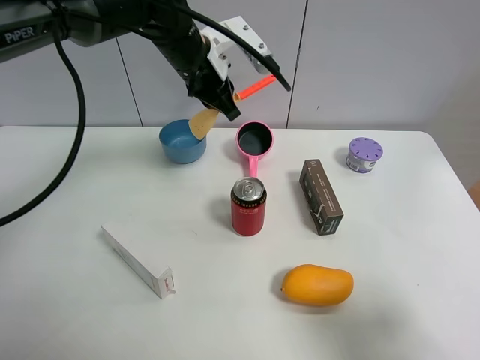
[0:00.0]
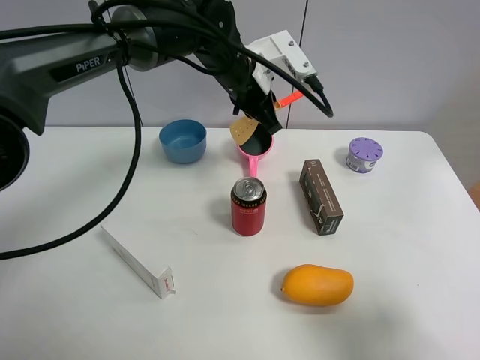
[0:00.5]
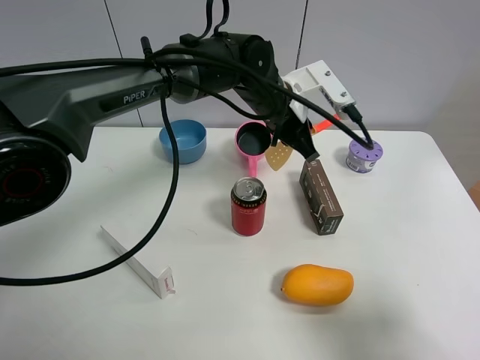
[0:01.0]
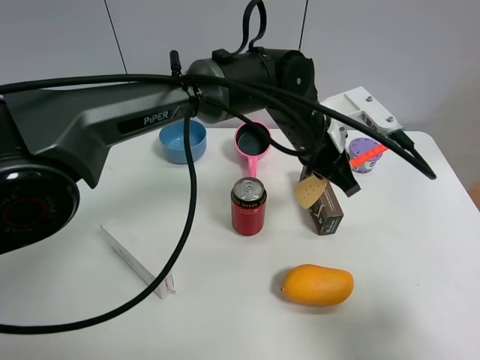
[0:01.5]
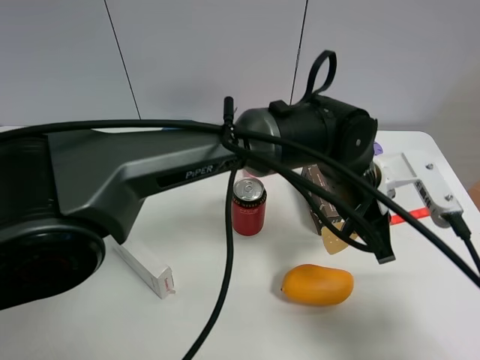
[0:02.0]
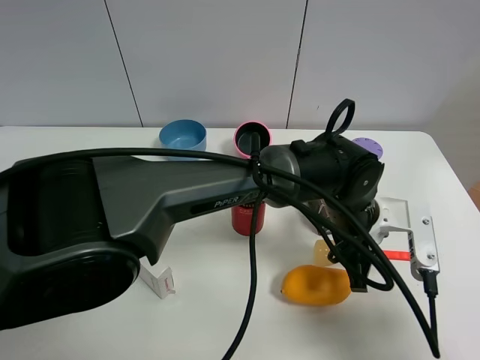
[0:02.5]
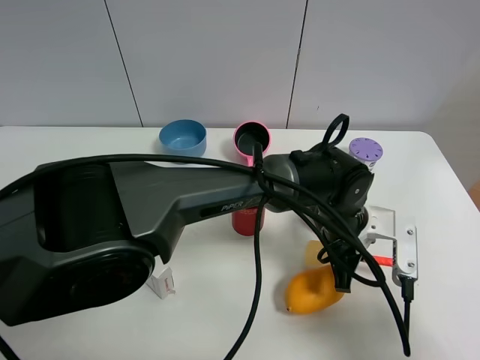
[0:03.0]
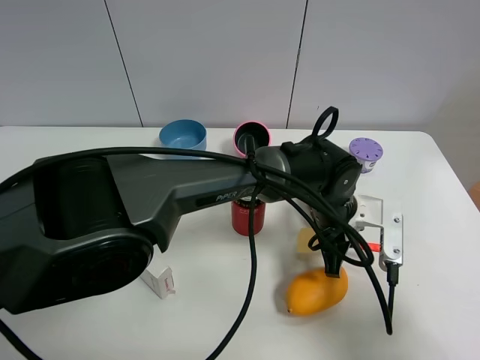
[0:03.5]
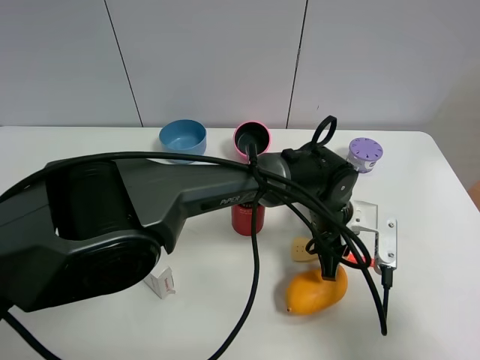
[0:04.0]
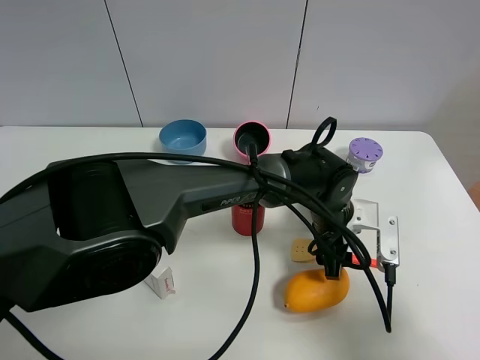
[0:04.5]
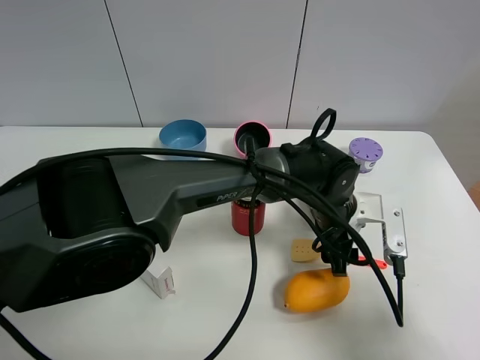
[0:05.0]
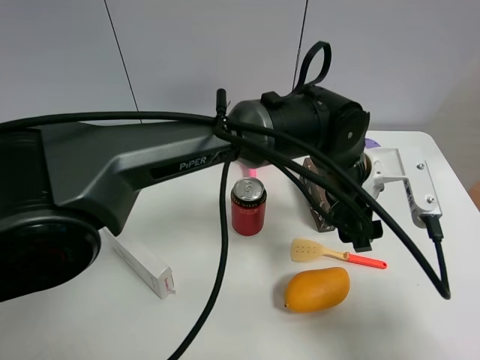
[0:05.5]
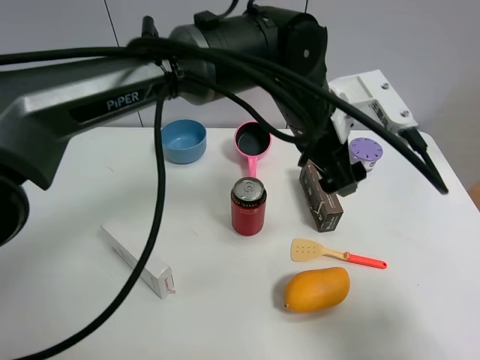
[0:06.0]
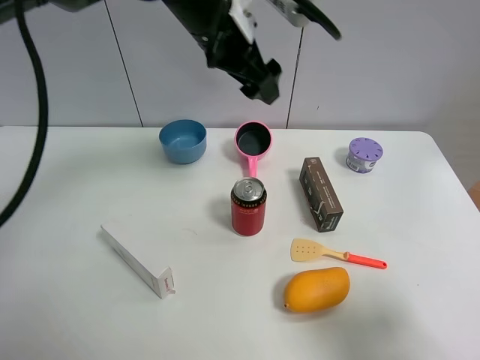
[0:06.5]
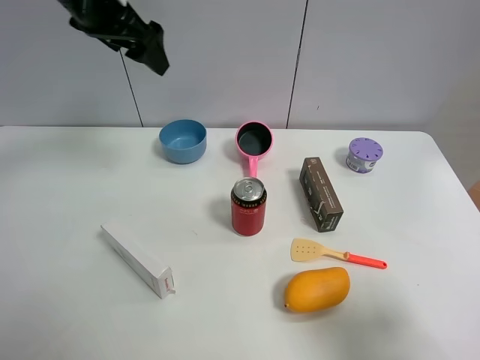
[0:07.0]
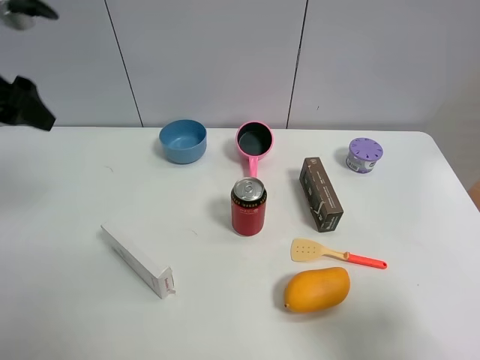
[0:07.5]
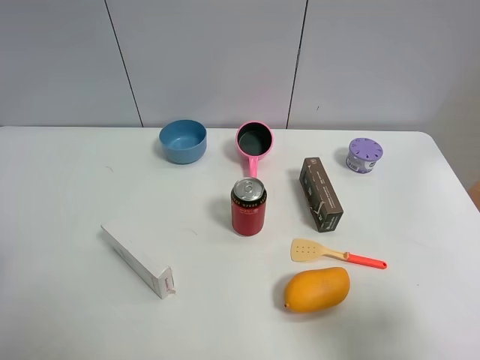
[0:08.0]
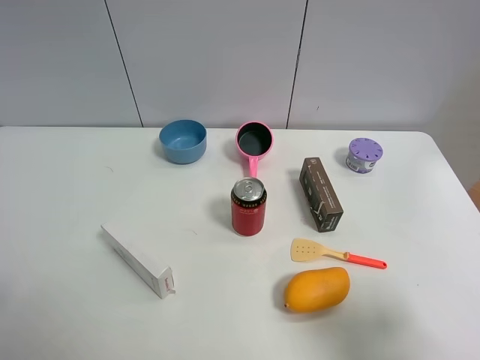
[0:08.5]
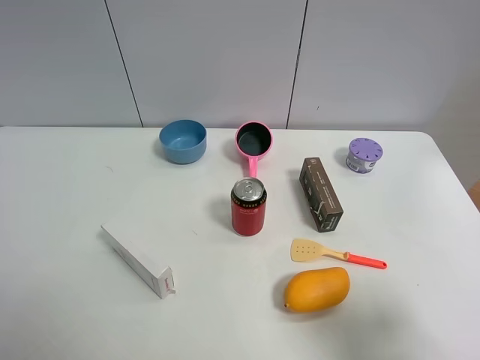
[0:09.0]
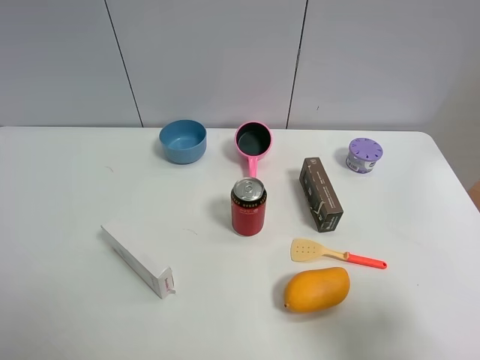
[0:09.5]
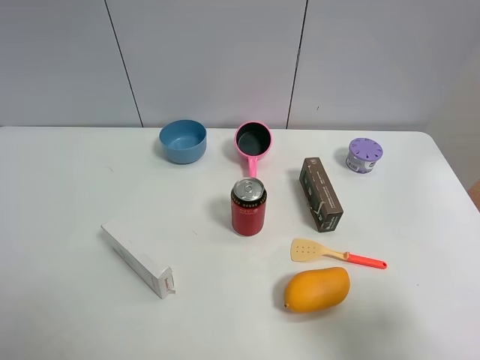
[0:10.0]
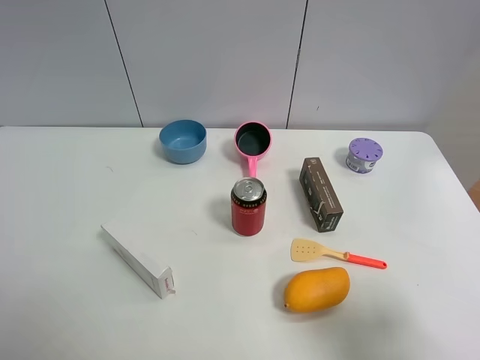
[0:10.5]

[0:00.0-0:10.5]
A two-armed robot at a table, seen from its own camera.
Task of the whole recording: the gripper move the object.
Step, 0:00.0 to 0:04.0: Place the cooking shovel on the table with the left gripper.
0:00.0 to 0:02.0: The left gripper goes about 25 cm to the right, backward and downward.
0:02.0 to 0:04.0: The left gripper goes some 10 cm downward.
0:04.0 to 0:06.5: The left gripper goes about 30 cm upward, to the left and forward, and opens up.
0:06.5 to 0:08.5: The left gripper moves backward and to the left, approximately 40 cm.

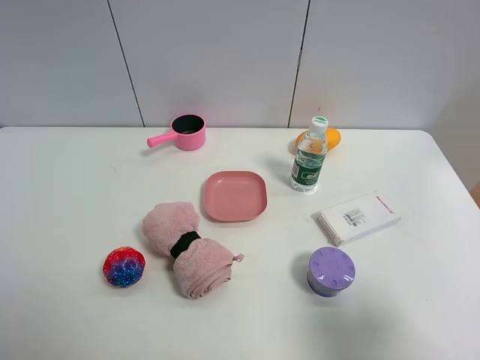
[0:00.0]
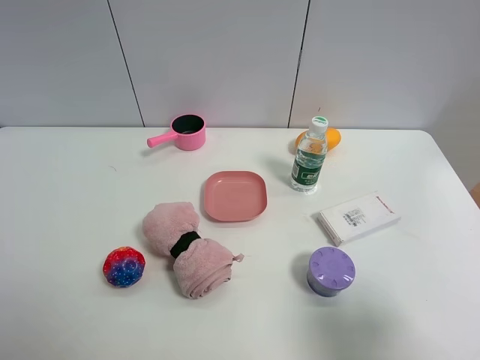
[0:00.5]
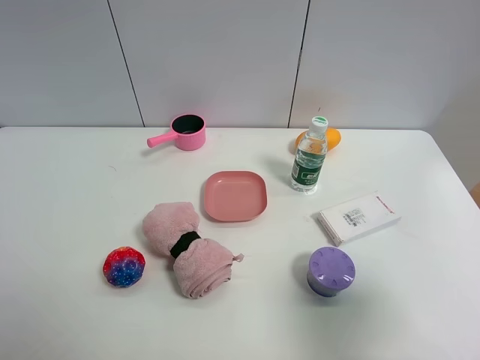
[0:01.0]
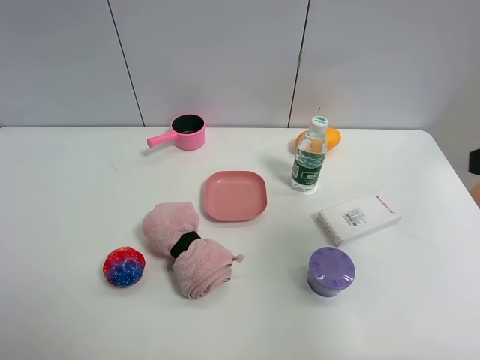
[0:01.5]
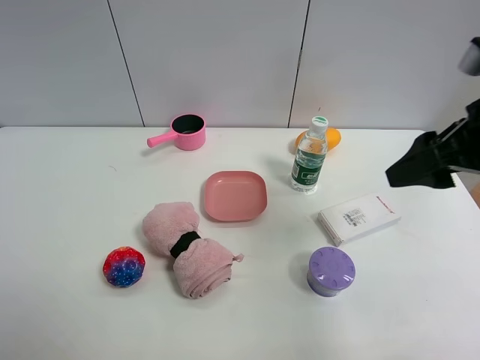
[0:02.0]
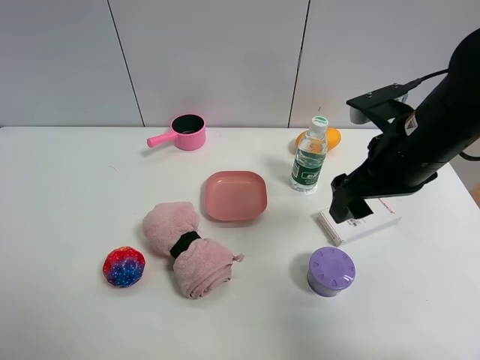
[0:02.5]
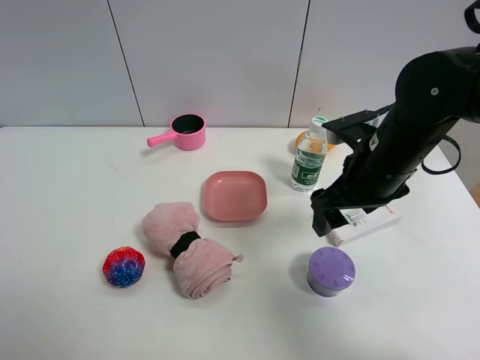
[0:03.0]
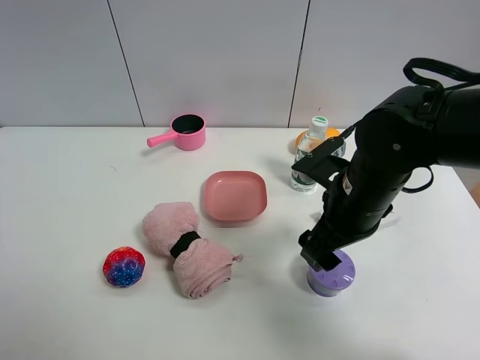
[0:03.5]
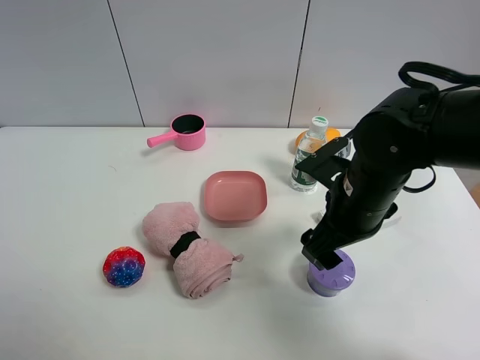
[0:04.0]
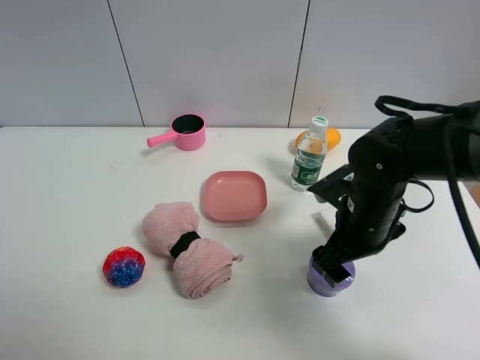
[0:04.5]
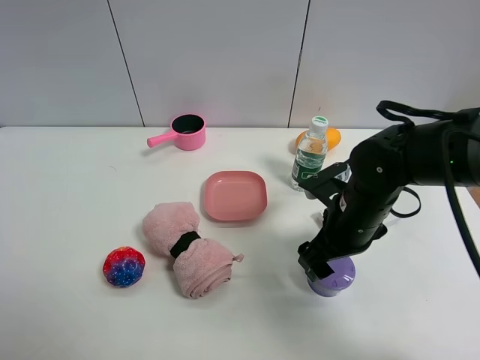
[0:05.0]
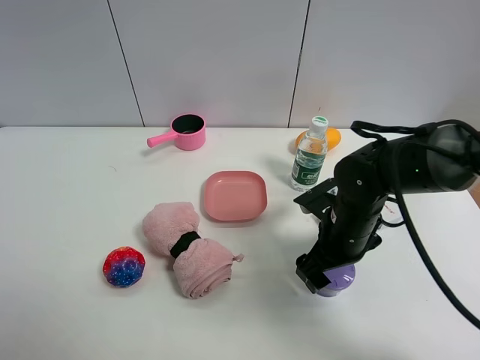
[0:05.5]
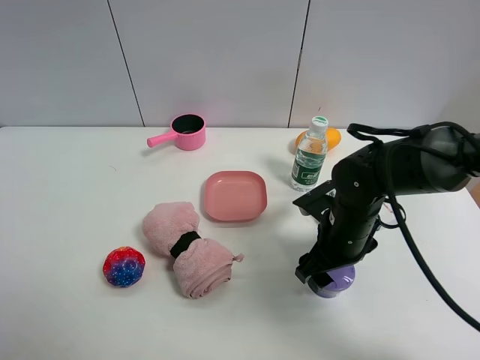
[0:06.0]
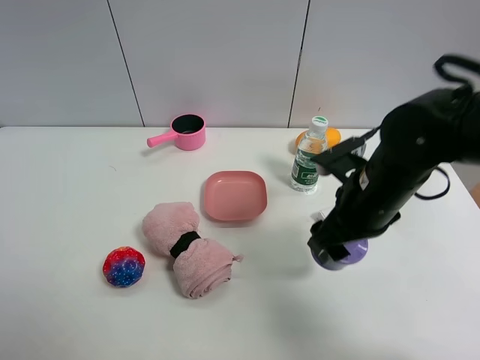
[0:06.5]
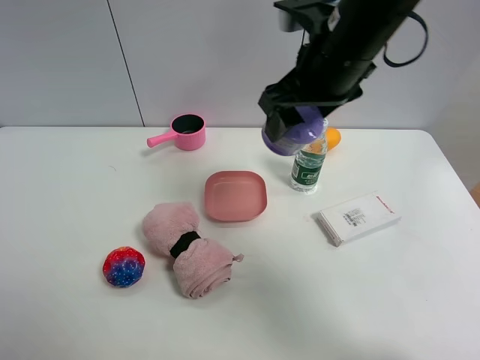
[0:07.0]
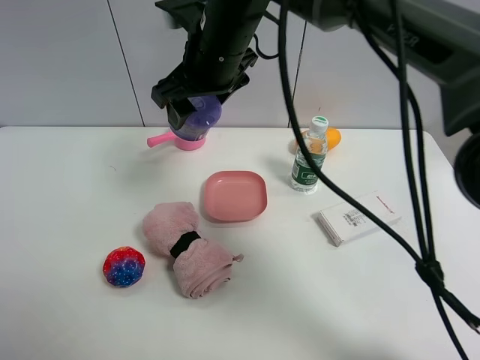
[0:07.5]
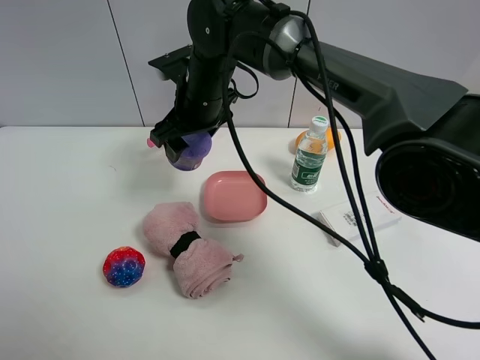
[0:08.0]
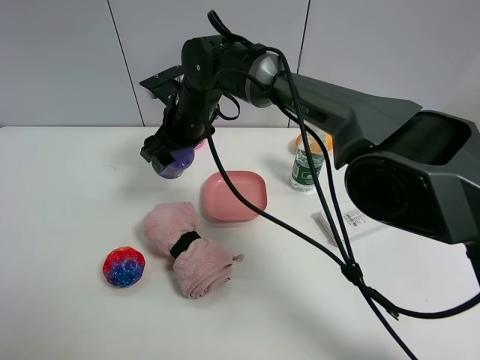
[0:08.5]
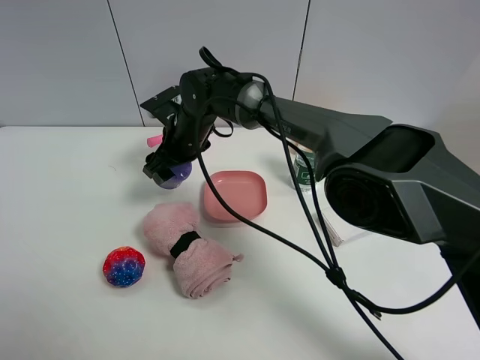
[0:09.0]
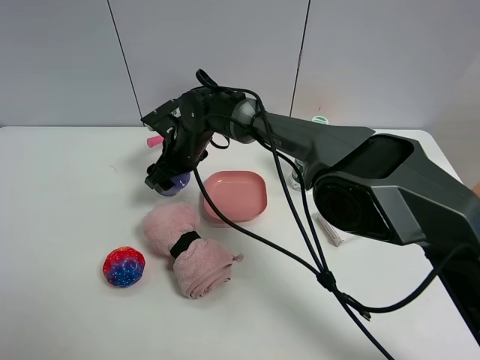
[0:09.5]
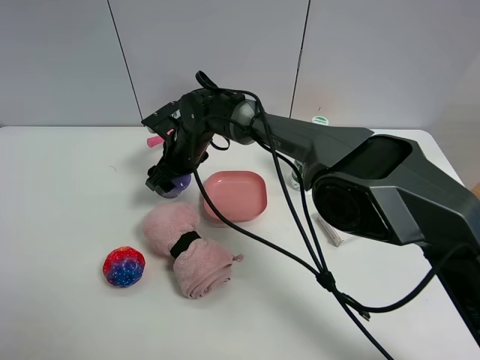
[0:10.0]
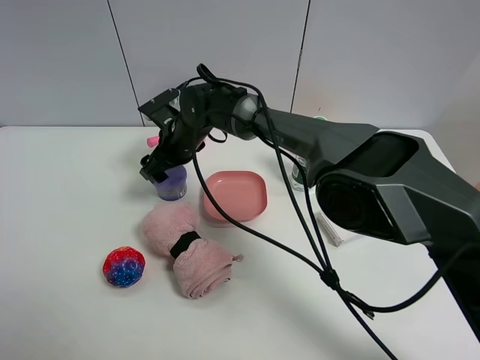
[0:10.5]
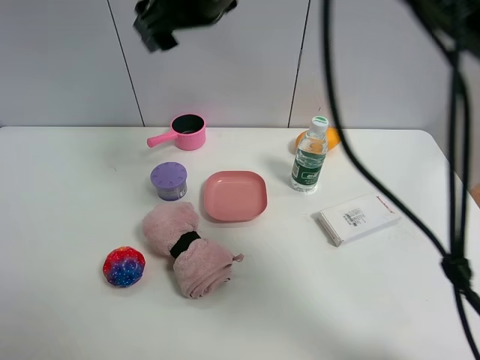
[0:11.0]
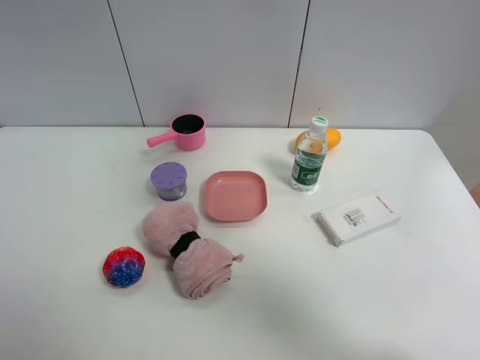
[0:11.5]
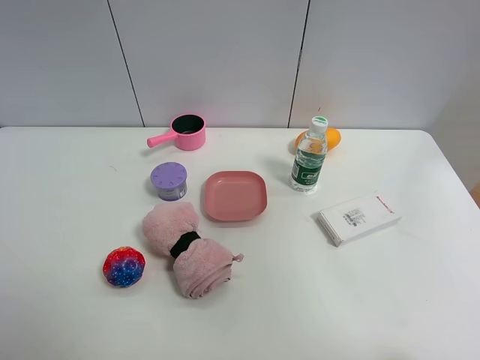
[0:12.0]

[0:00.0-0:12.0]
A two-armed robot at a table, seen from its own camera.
Task of the whole recording: the gripper move the object.
Step, 0:00.0 to 0:05.5: Grasp the Incense box with the right gripper.
Step, 0:06.0 to 0:10.0: Place the Incense box on the table with the right gripper.
0:00.0 to 0:02.0: The right gripper goes some 20 cm forward, and closes.
0:02.0 to 0:04.0: The right gripper travels downward and to the left by some 15 cm, and opens its fingers.
0:04.0 to 0:06.0: The right gripper travels downward by roughly 10 cm, and closes up.
0:06.0 to 0:08.0: The right gripper heads to the left, forward and upward, covering approximately 25 cm.
0:08.0 to 0:10.0: The right gripper moves downward, roughly 10 cm.
0:10.0 to 0:12.0: The right gripper goes about 70 cm upward, to the right and backward, and opens its fingers.

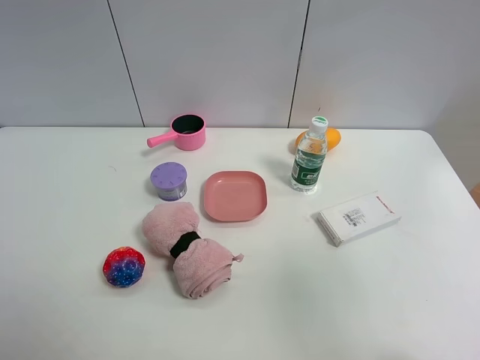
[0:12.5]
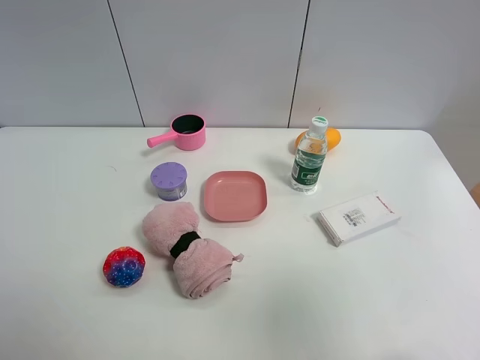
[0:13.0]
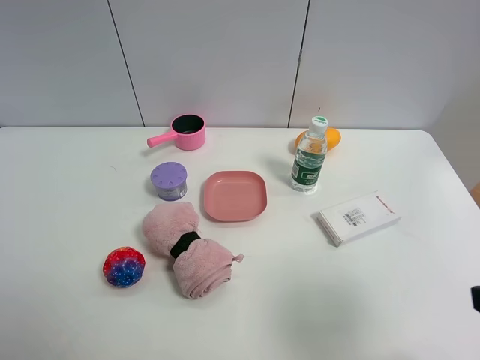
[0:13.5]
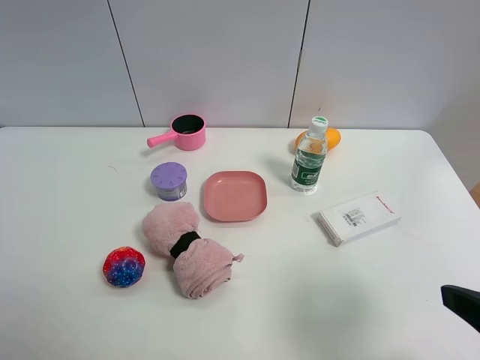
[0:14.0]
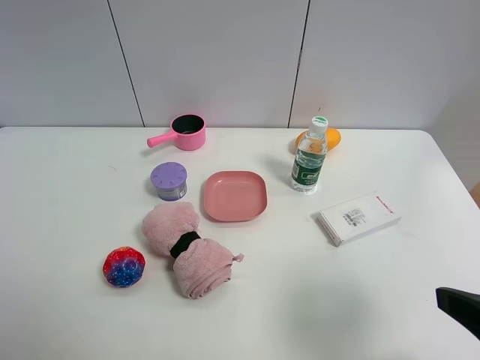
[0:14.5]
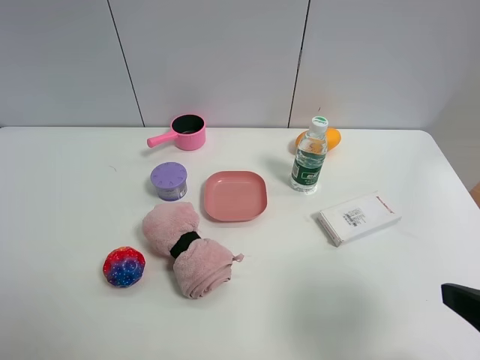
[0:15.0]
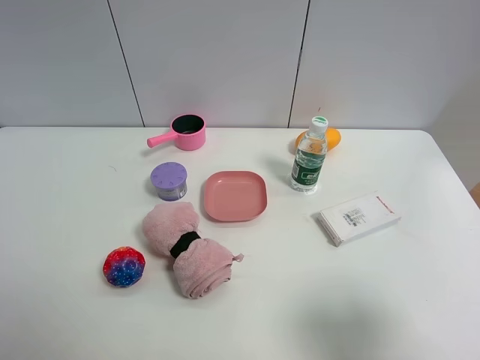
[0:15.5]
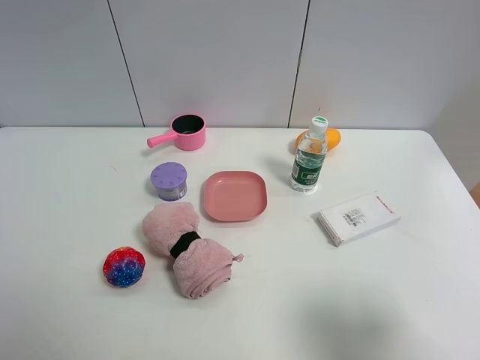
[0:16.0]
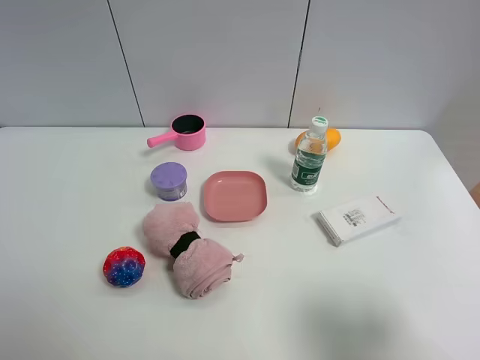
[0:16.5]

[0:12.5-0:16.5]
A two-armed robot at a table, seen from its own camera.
Task of the whole recording: the gripper move the object.
0:12.5 to 0:14.5: The right gripper heads downward, covering some 20 cm.
